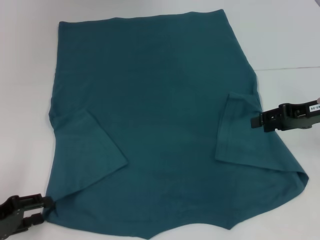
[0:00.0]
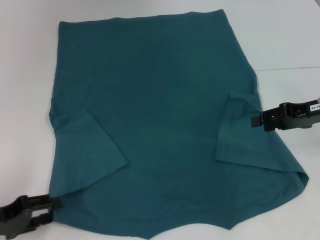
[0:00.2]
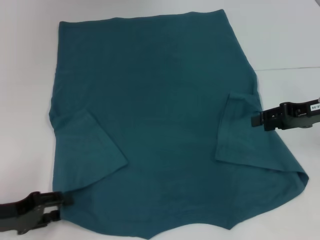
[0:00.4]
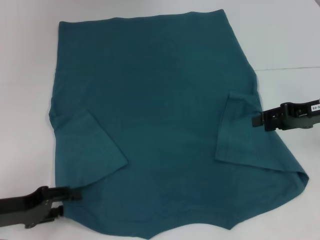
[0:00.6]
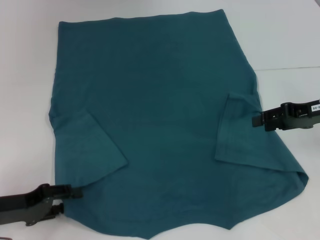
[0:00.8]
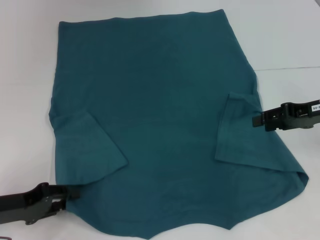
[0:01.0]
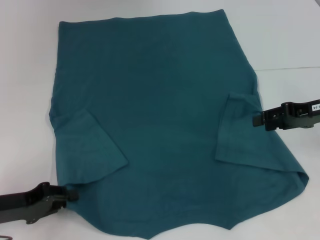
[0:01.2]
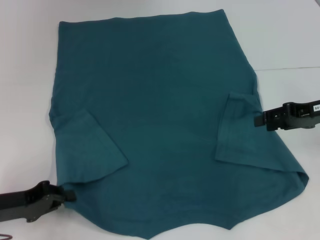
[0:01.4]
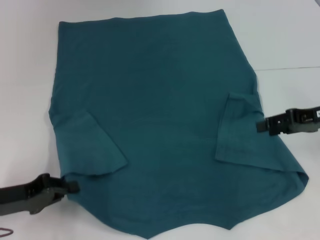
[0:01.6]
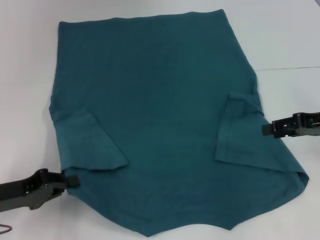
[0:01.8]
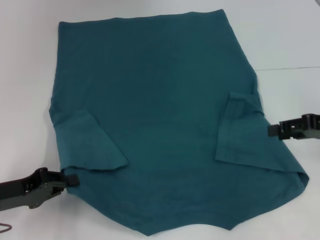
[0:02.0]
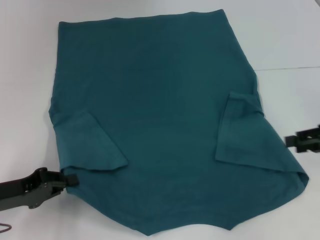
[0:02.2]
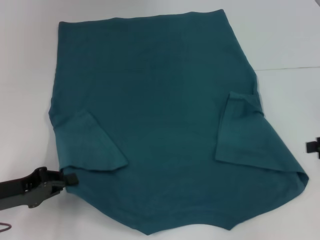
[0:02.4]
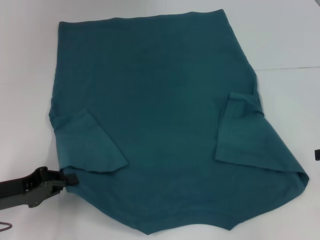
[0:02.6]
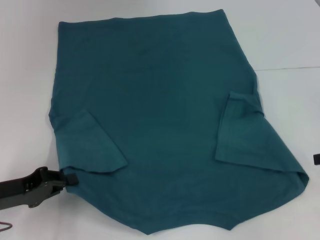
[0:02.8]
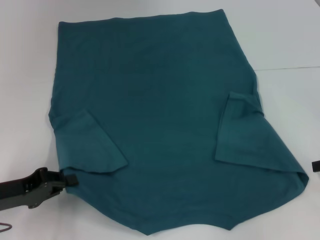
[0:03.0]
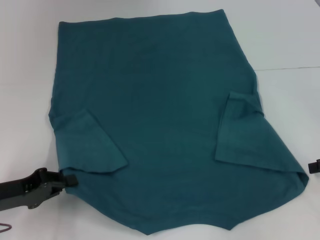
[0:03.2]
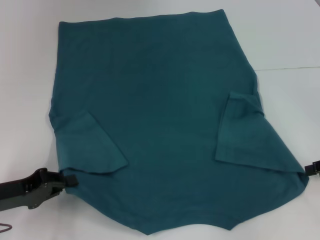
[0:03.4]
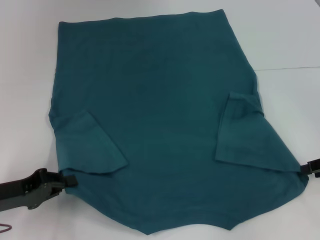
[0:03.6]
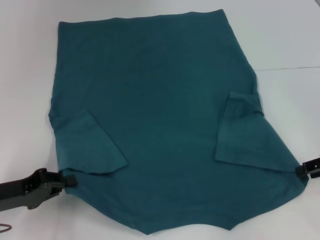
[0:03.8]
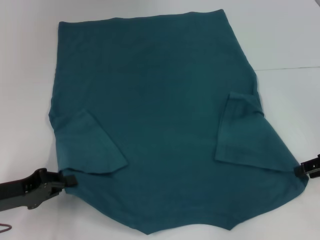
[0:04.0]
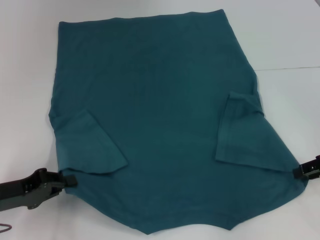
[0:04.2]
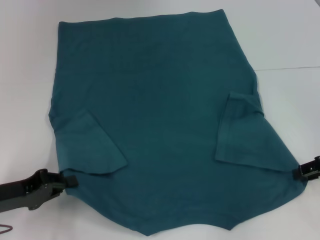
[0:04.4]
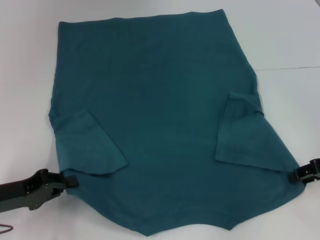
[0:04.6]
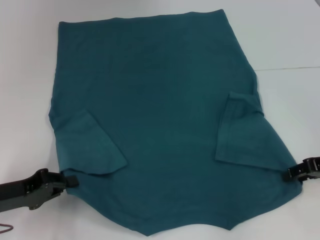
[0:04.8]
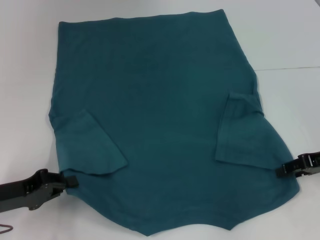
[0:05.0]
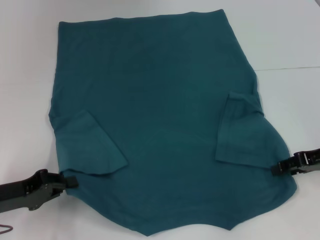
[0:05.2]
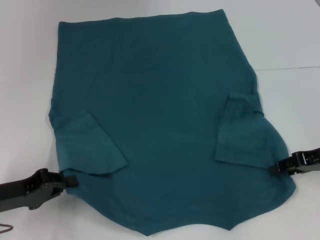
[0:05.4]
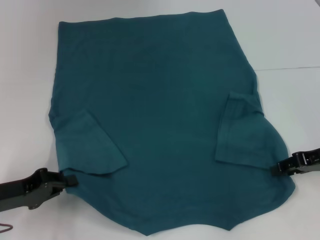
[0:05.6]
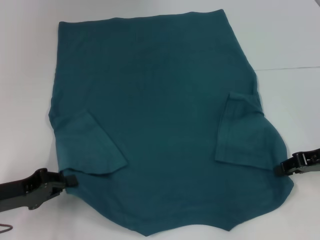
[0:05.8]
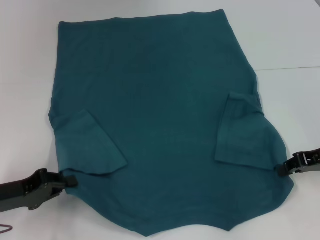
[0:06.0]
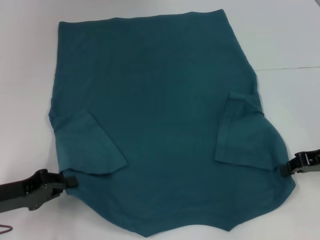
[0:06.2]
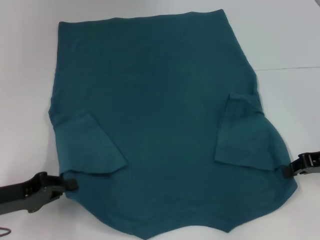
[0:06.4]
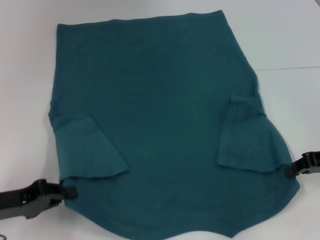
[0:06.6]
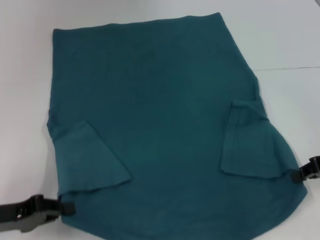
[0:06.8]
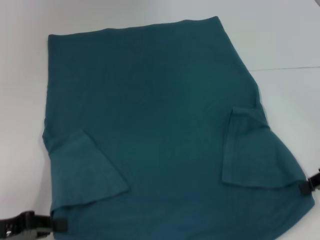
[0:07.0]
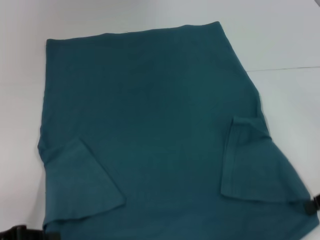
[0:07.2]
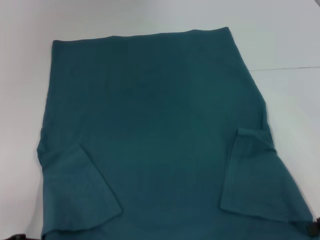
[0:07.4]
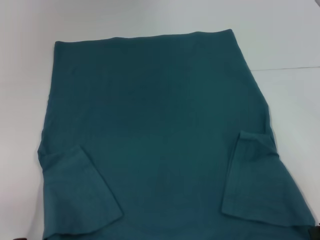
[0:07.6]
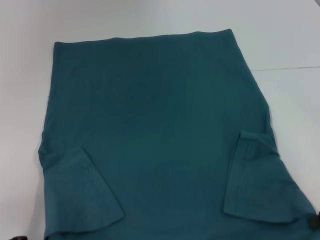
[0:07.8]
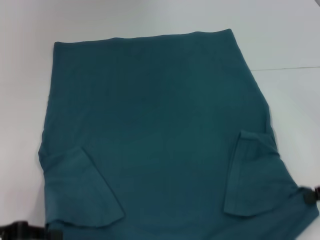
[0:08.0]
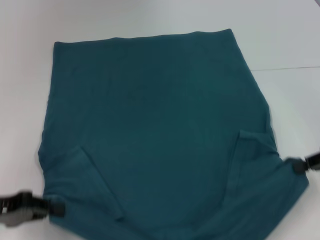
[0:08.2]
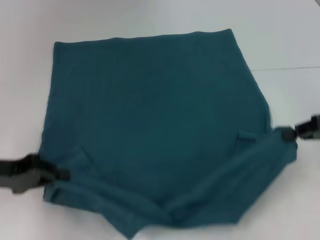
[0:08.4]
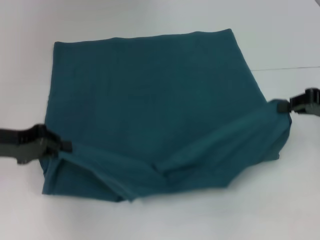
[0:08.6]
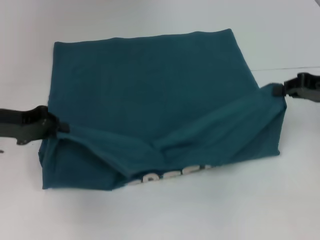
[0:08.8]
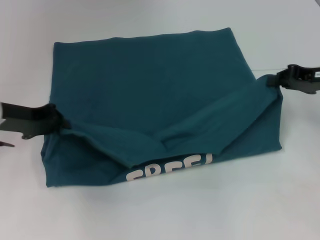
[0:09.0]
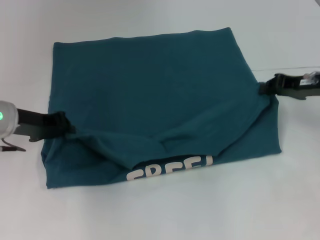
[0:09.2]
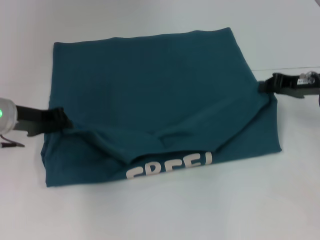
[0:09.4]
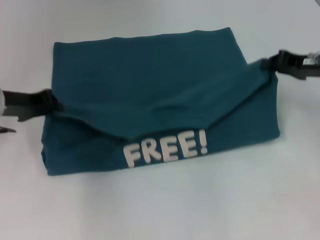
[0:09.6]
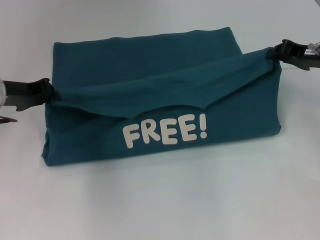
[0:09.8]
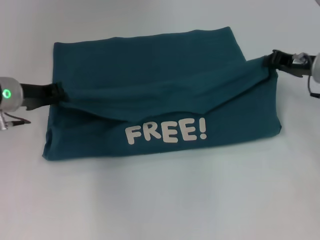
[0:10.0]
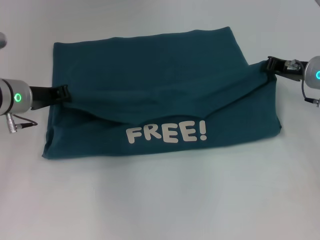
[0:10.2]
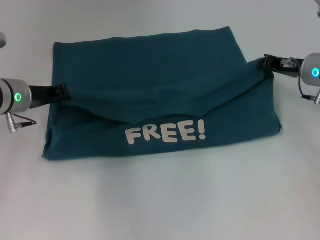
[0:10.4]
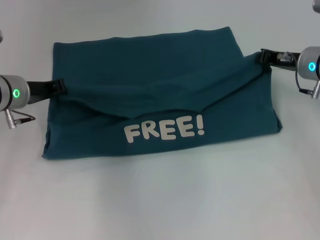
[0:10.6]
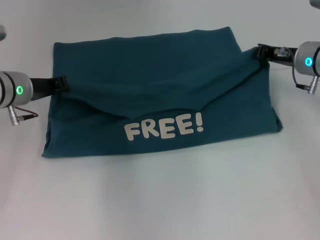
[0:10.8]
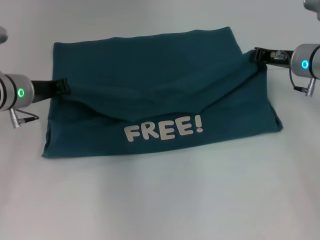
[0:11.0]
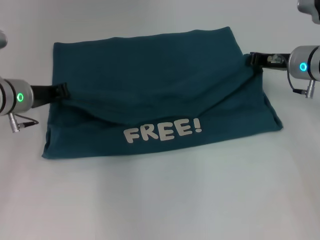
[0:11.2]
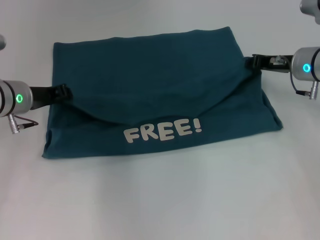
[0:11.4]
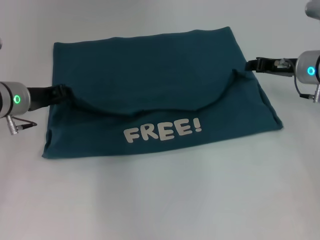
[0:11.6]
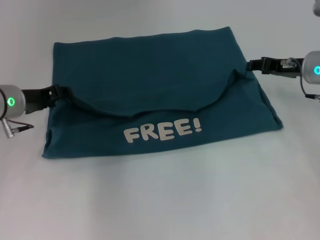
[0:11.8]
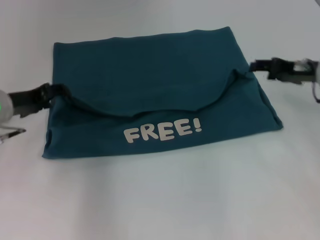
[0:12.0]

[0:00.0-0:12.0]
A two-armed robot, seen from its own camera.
Step, 0:01.6 to 0:06.4: Grab the bottom right corner with your right hand.
Step, 0:06.6 to 0:11.6: Fold the clothes to the left.
Step, 0:06.6 to 0:11.6: Fold the clothes to the right.
0:00.0 to 0:01.6: The left gripper closes up.
0:01.6 to 0:03.0: The right gripper moves to the right and backward, some 10 cm.
0:03.0 to 0:04.4: The grippers move only a little.
0:04.4 to 0:06.0: There are only small adjustments of the grippers.
0:06.0 to 0:07.6: The two grippers go some 5 cm backward.
0:07.6 to 0:09.0: Both grippers travel together forward and upward, roughly 15 cm.
0:09.0 to 0:10.4: The right gripper travels forward by some 5 cm, while the left gripper ends up approximately 5 cm from where it was.
0:10.4 to 0:12.0: The left gripper opens; the right gripper opens its fingers.

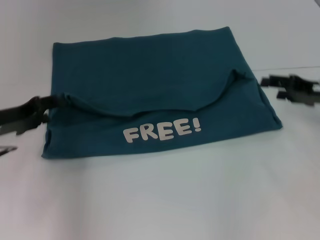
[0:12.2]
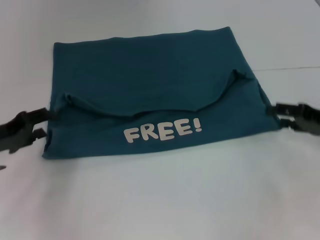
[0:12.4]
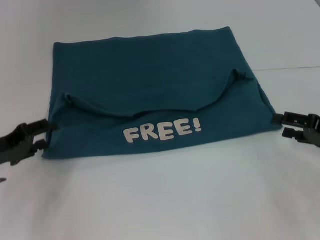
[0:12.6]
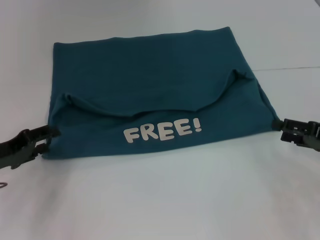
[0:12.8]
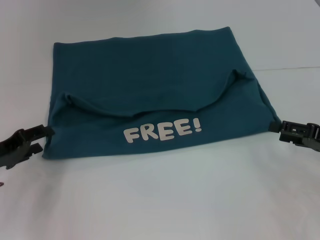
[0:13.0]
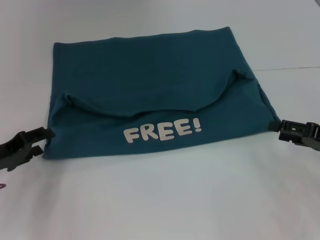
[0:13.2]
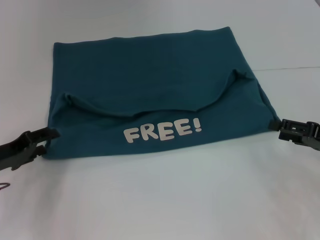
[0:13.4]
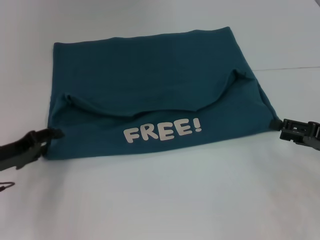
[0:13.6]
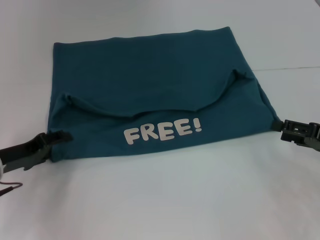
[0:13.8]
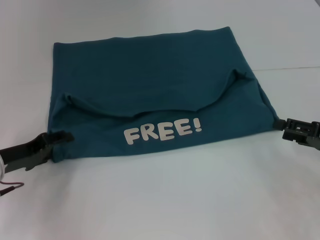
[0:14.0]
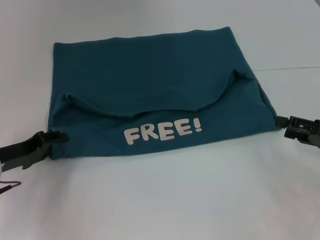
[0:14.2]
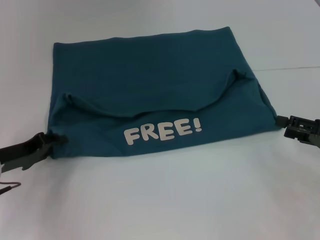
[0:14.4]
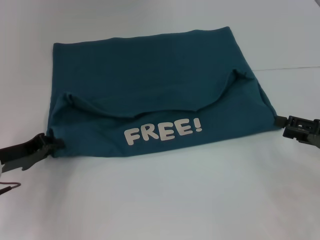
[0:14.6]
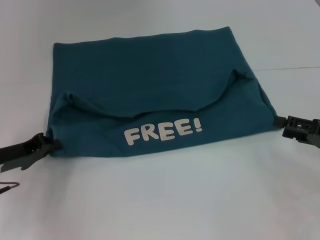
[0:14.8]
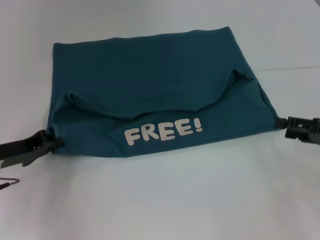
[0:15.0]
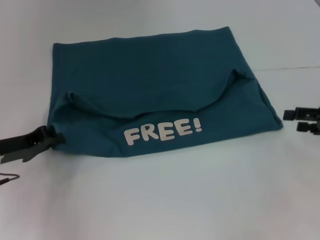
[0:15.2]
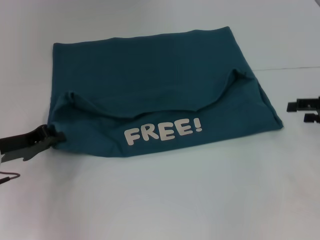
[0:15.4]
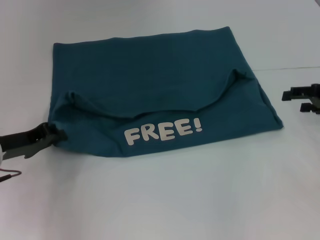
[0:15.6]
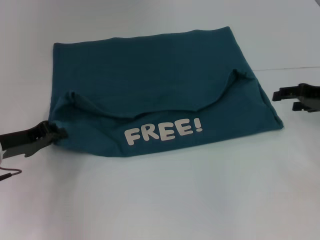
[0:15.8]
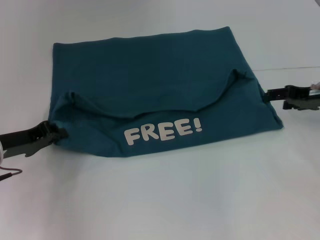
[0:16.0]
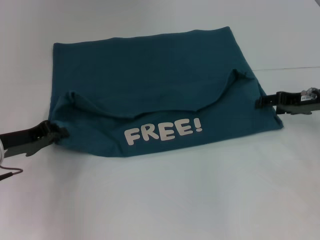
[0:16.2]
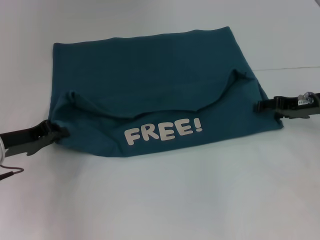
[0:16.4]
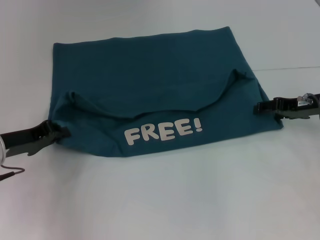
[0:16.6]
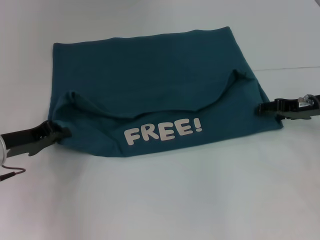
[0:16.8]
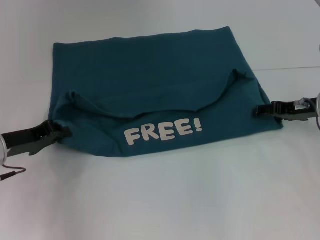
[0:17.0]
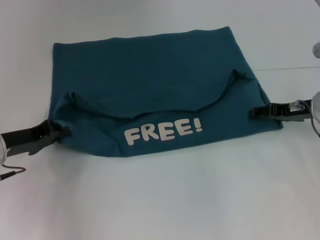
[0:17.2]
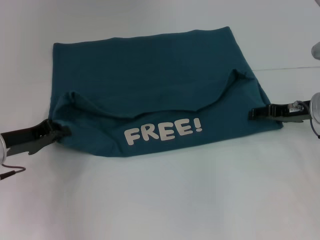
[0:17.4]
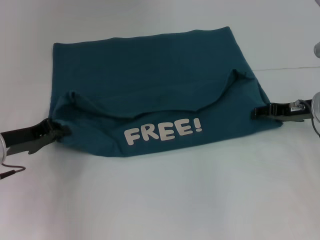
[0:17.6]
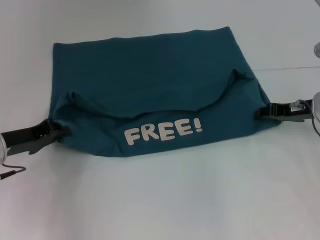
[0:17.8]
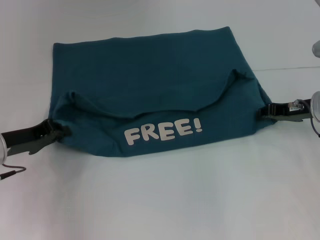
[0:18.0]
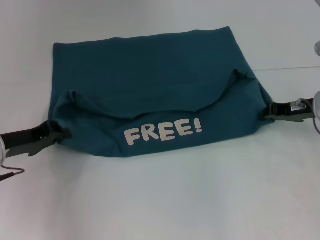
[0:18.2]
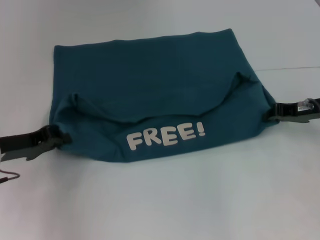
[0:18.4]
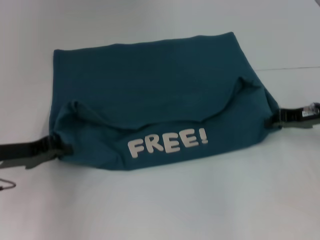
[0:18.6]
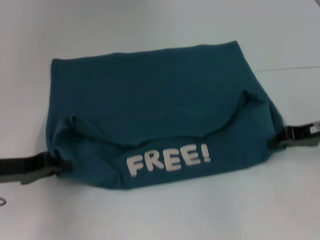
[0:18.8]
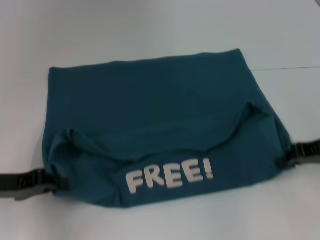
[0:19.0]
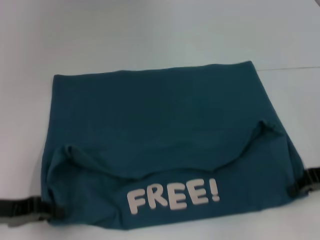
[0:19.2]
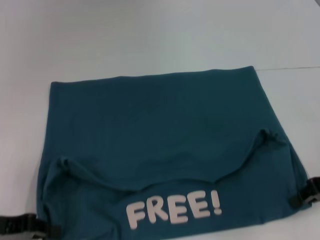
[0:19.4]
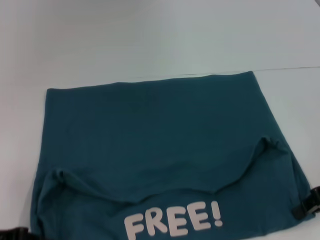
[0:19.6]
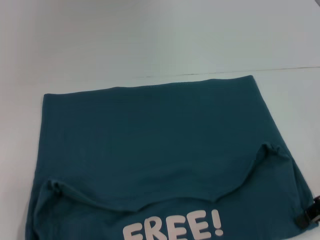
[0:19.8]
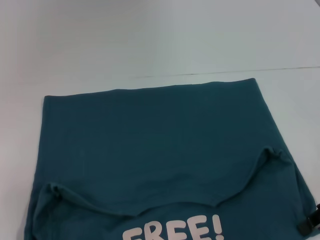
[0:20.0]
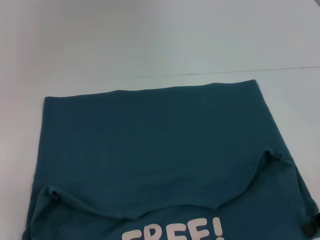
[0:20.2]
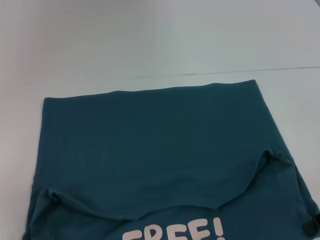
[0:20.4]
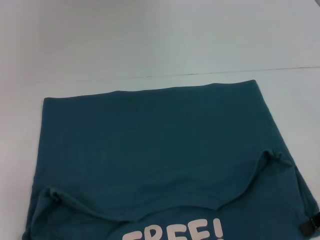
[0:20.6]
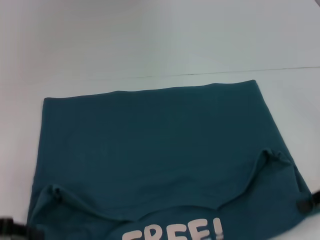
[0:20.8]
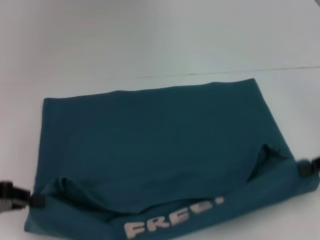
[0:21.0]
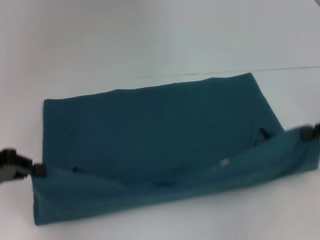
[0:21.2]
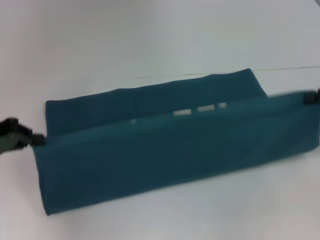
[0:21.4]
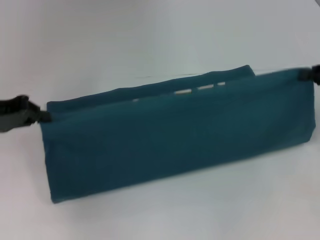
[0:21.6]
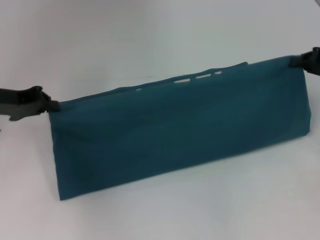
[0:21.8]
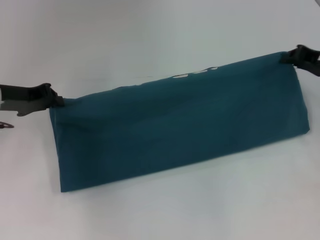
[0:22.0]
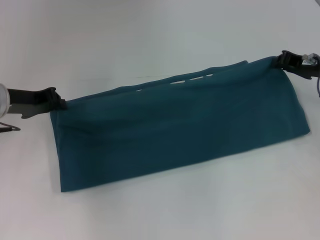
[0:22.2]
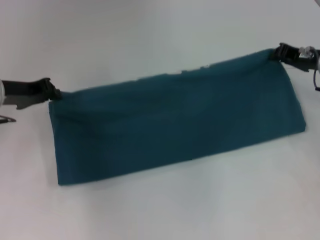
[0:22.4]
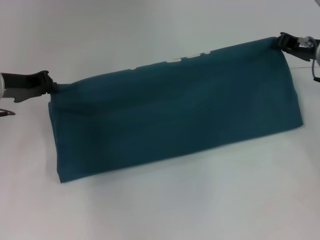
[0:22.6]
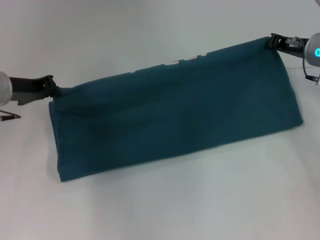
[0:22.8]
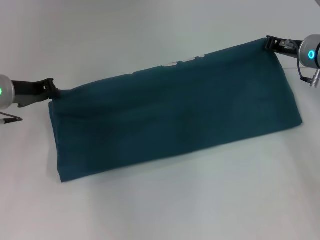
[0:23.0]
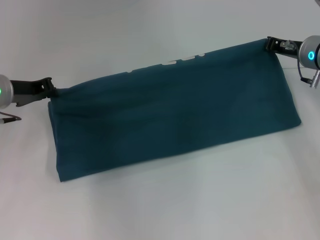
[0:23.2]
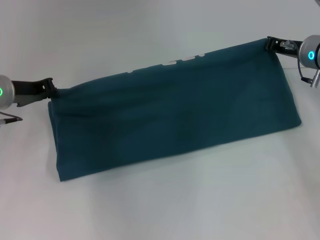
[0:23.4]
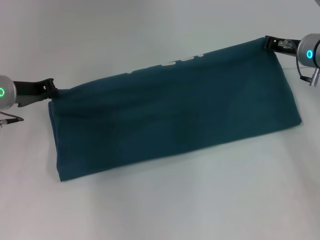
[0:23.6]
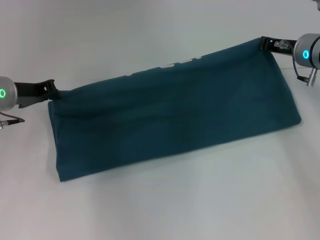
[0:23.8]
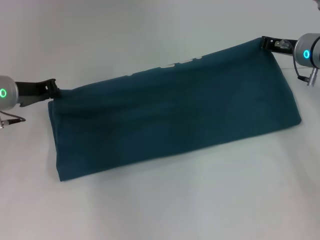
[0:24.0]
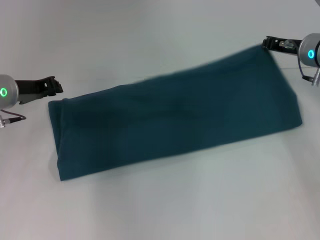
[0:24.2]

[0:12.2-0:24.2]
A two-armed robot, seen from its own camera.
Step, 0:12.2 to 0:20.0: Pull the clothes with your left hand.
Step, 0:12.2 to 0:20.0: Pull the clothes with your right hand.
0:12.2 to 0:13.8: The left gripper moves downward, about 5 cm. Meanwhile the right gripper heads backward, covering some 10 cm.
0:13.8 to 0:15.2: The left gripper closes up.
0:15.2 to 0:16.6: The right gripper goes about 10 cm forward and to the left.
0:16.6 to 0:18.2: The right gripper closes up.
0:18.2 to 0:19.8: Both grippers travel together backward, about 10 cm.
0:19.8 to 0:21.2: The left gripper travels forward and upward by approximately 10 cm. The right gripper changes place by roughly 5 cm.
0:21.2 to 0:22.6: The right gripper moves forward and to the left, roughly 15 cm. The left gripper goes some 15 cm forward and to the right.
0:22.6 to 0:24.2: The grippers make only small movements.
